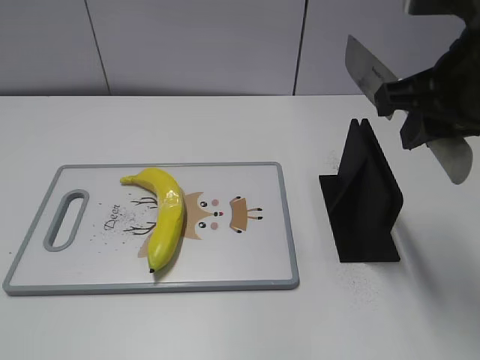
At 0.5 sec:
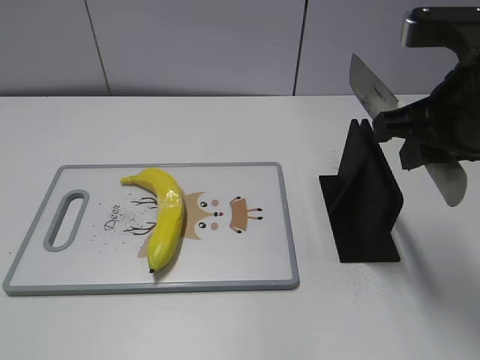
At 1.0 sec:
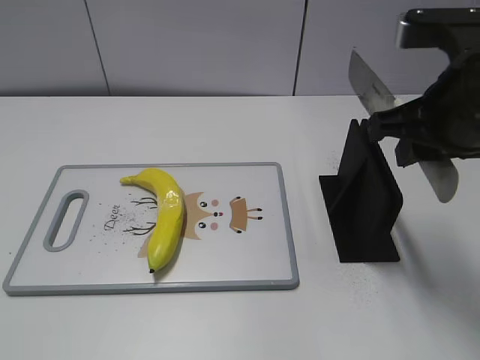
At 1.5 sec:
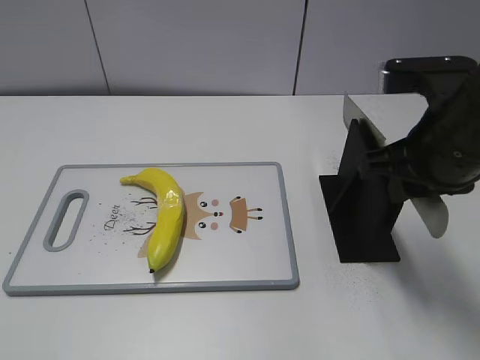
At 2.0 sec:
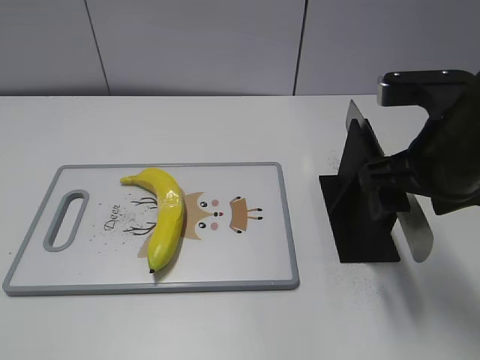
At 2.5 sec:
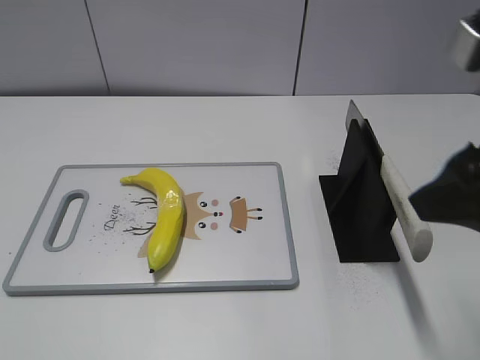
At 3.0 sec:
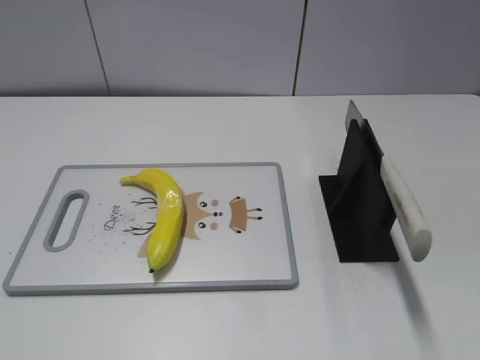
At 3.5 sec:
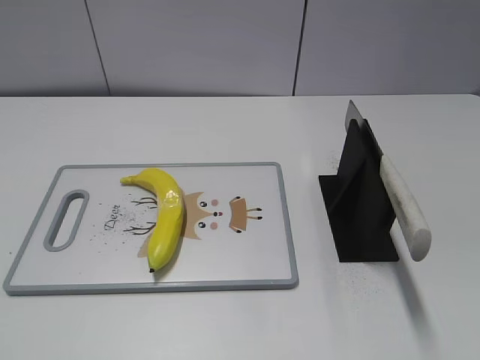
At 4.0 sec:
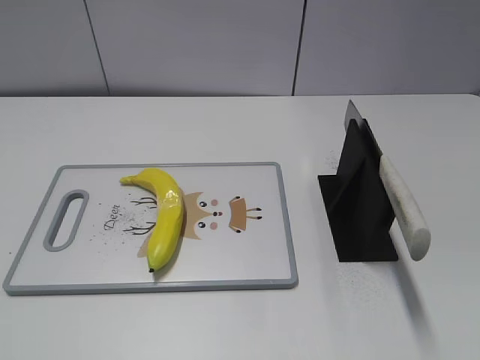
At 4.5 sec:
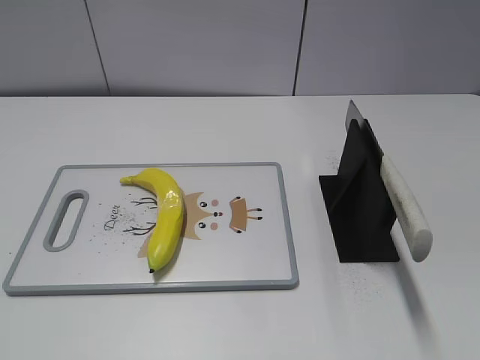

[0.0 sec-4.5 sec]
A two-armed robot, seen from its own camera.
Task of the whole recording: cut plastic banana.
Step, 0.0 sec to 4.5 sec: Place the knife on the storage rack with your right hand.
0.0 sec to 2.0 sec: The right gripper travels downward by some 5 cm, and opens its fingers.
2.0 sec to 4.5 sec: The right gripper heads backward and to the right, covering some 25 cm.
